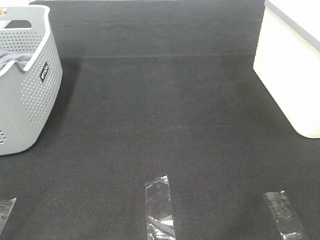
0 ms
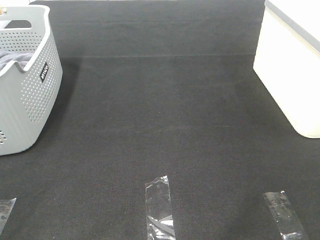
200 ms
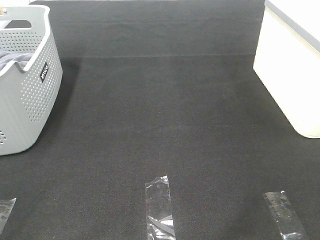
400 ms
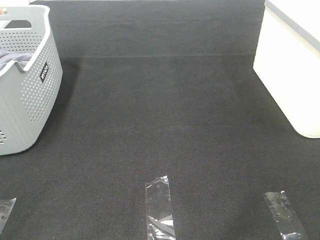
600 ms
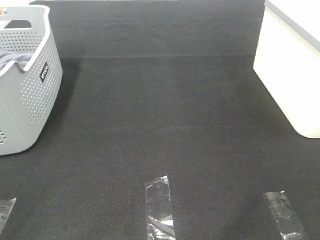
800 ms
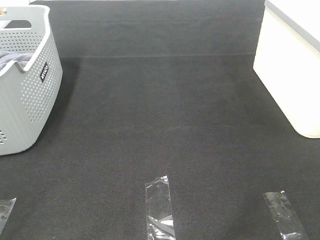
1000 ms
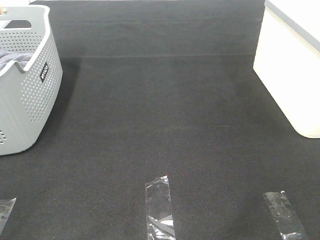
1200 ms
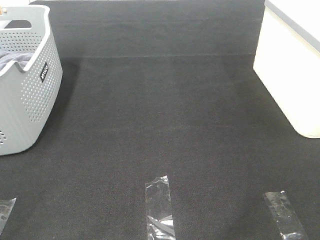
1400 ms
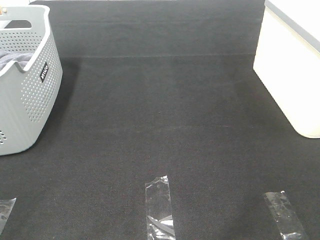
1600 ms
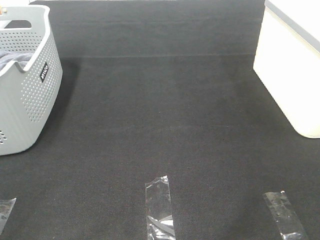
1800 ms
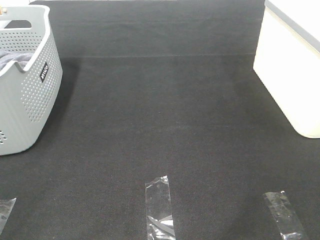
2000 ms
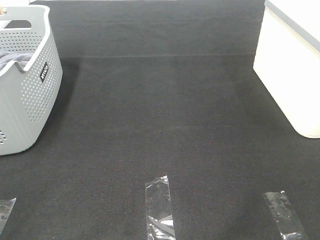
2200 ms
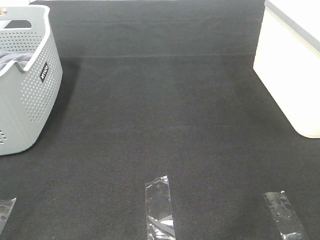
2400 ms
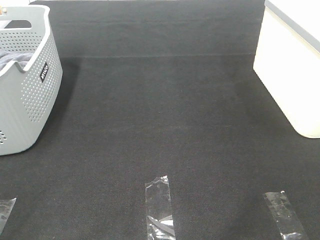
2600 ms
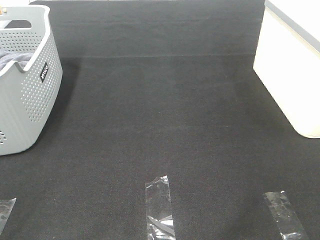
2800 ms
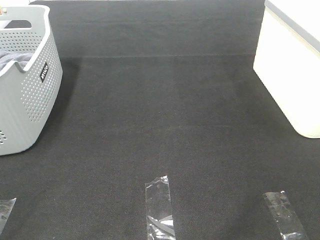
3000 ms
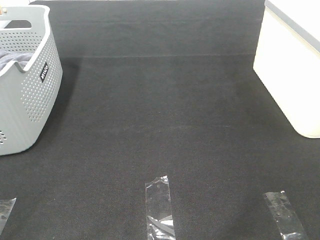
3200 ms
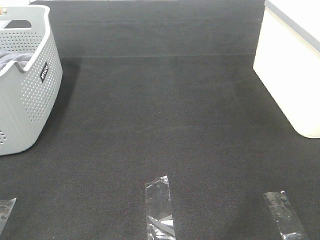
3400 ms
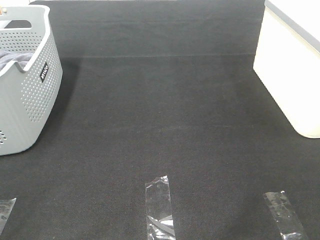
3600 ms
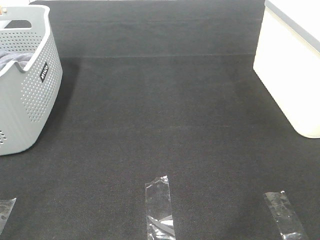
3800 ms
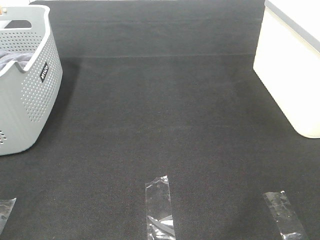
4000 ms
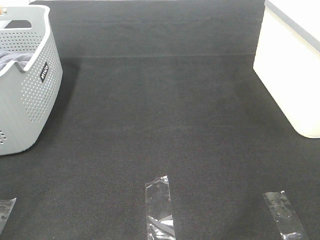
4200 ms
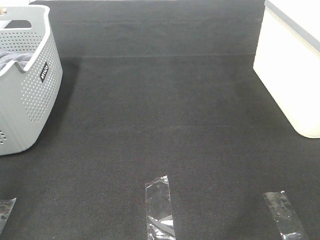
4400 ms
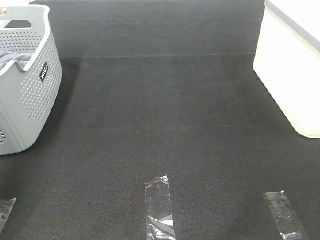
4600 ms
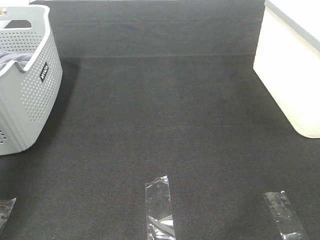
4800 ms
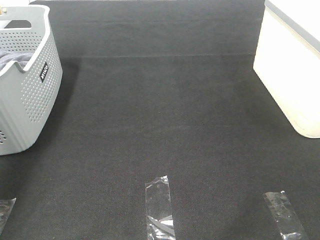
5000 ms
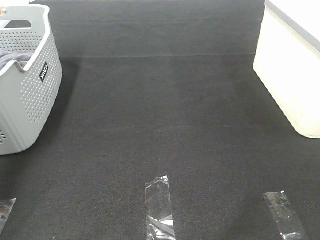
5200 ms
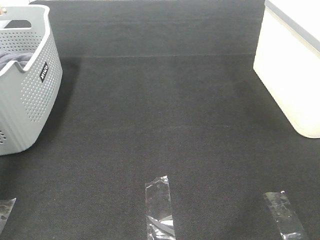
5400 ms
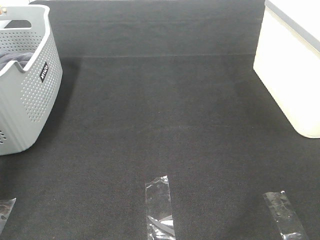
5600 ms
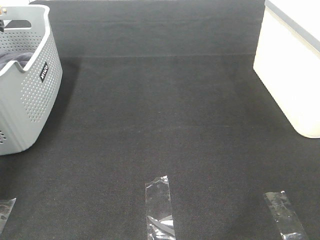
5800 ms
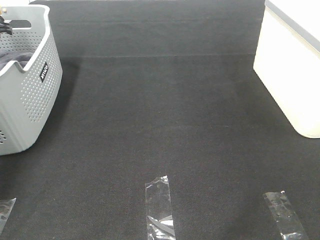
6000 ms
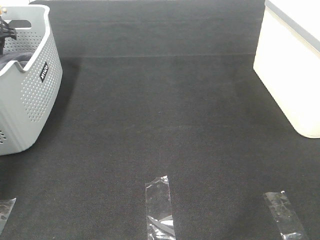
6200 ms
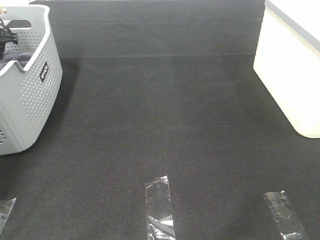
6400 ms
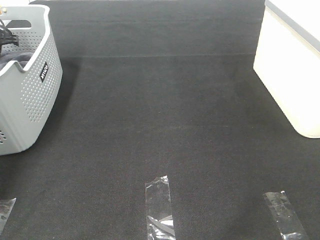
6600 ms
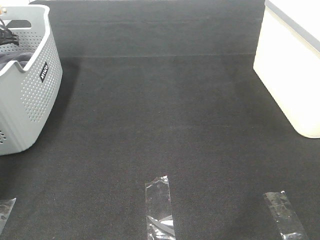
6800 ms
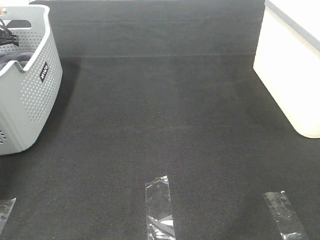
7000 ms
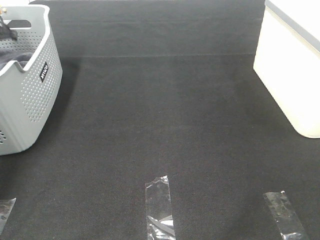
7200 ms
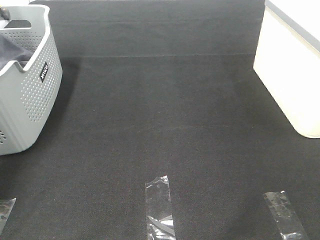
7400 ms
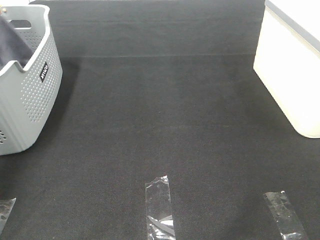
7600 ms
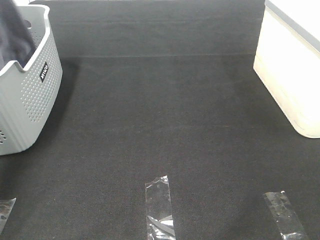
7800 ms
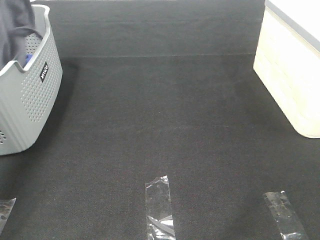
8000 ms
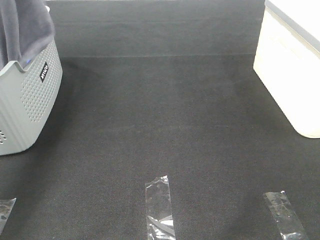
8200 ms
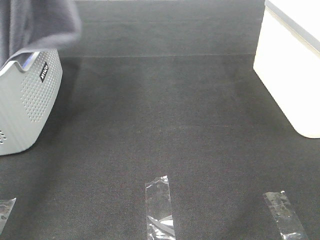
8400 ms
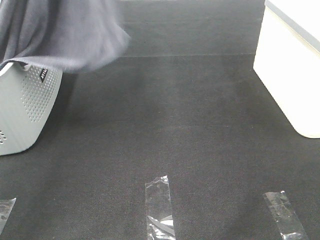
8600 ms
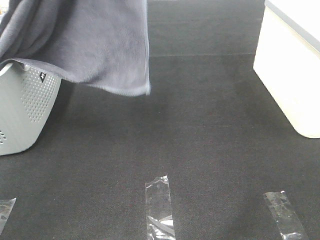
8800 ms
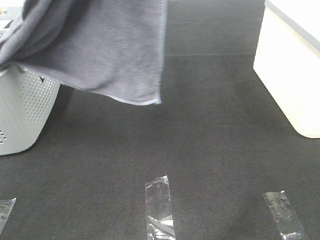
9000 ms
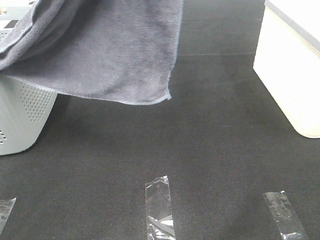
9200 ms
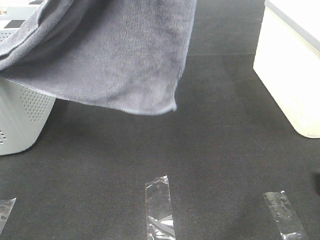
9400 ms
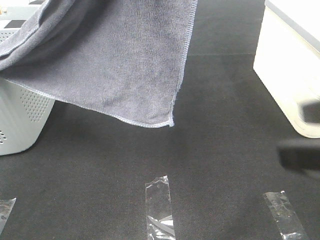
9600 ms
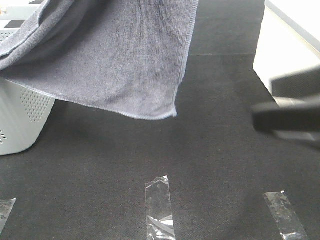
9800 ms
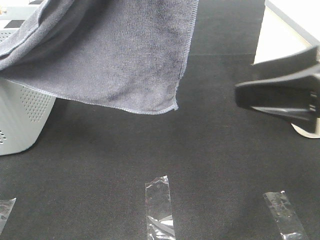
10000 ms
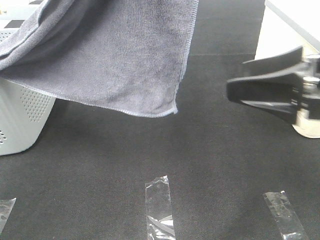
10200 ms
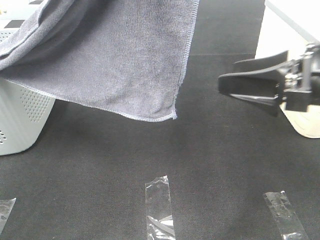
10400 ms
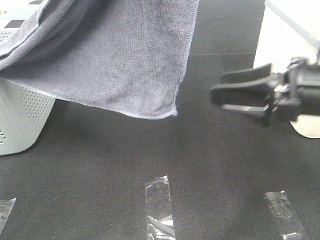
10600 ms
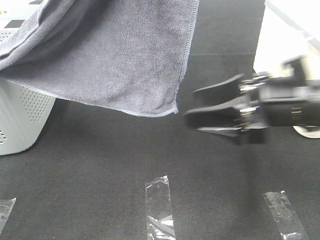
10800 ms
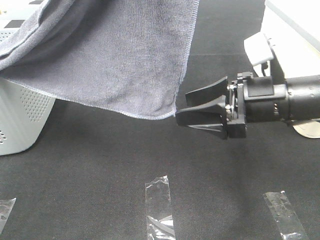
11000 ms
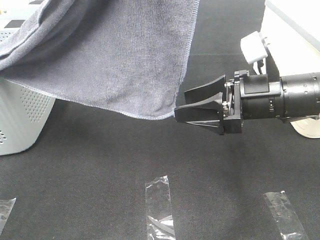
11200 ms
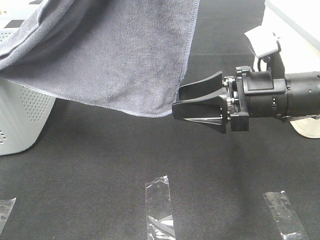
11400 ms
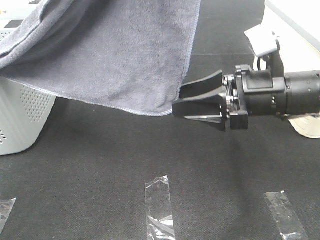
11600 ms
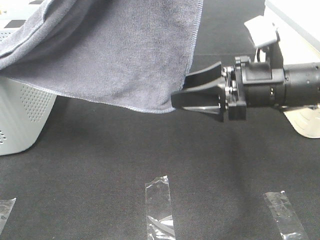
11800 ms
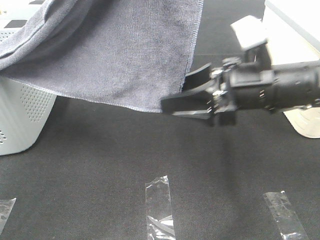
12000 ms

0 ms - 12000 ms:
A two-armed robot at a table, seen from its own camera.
Task of the whole recording: Remove the towel and place it.
Step, 8400 ms - 11400 ms: Right hand: grab a corner of the grey towel and straighten it.
0 ms - 3000 ms: Neither gripper changes place.
4400 ms - 6000 ms: The left gripper moves forward, approximately 40 cm.
6000 ms - 7600 ms: The left gripper shifts some 10 cm upward, and closes up.
7600 ms - 9000 ms: The left gripper shifts roughly 40 cm to the right, backward and upward.
9000 ms - 10400 ms: The right gripper heads forward, covering approximately 20 cm.
10400 ms - 12000 ms: The right gripper goes roughly 10 cm to the left.

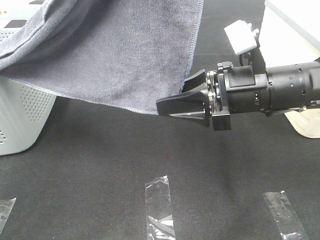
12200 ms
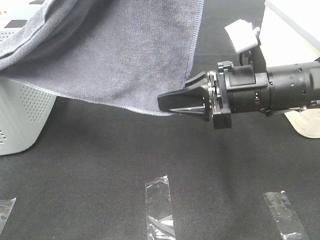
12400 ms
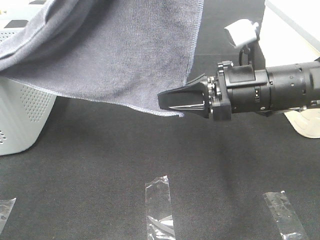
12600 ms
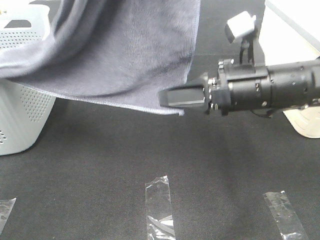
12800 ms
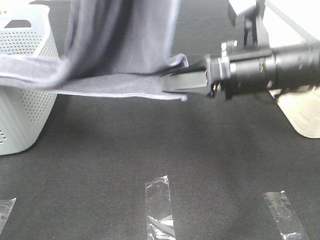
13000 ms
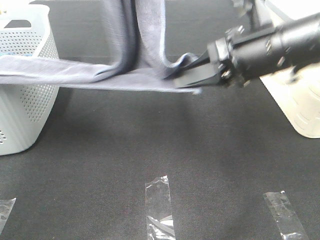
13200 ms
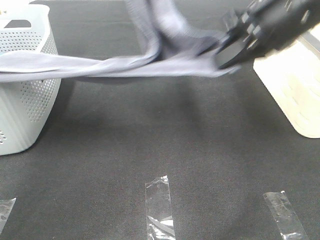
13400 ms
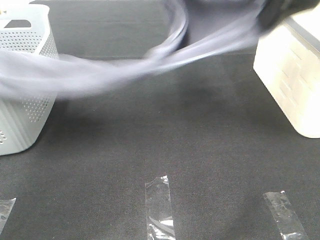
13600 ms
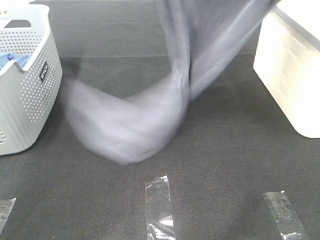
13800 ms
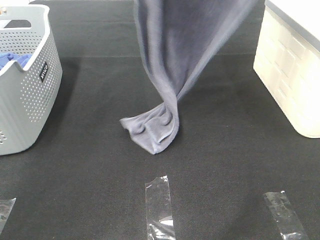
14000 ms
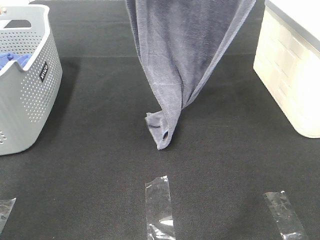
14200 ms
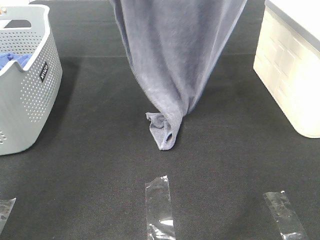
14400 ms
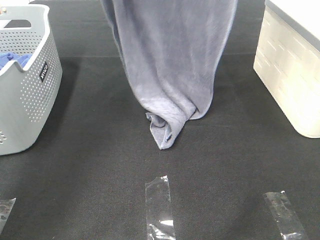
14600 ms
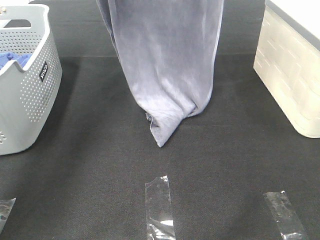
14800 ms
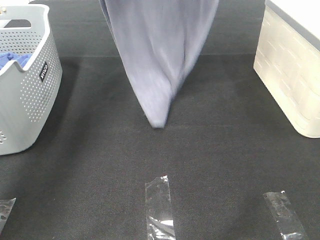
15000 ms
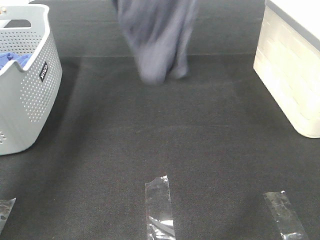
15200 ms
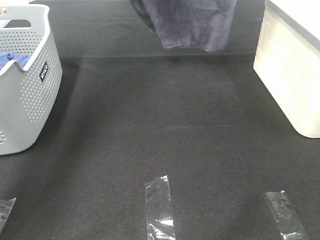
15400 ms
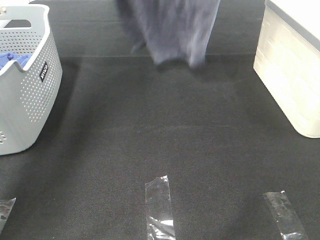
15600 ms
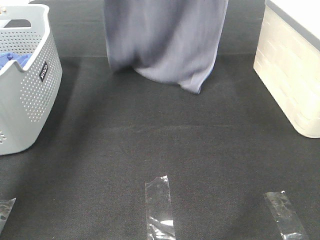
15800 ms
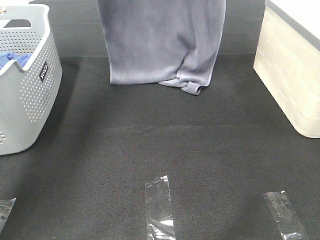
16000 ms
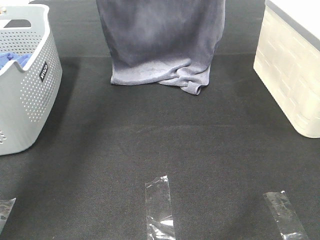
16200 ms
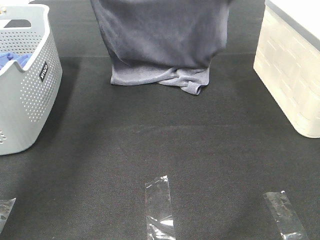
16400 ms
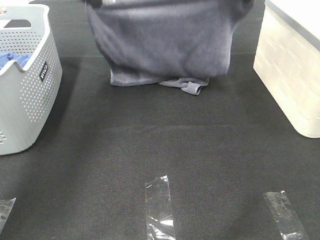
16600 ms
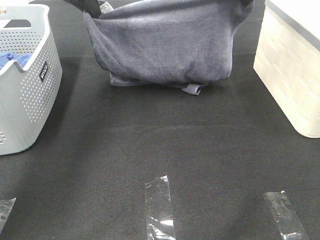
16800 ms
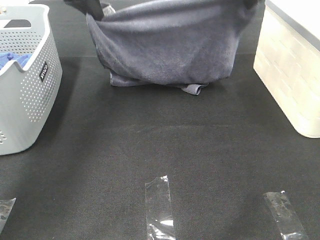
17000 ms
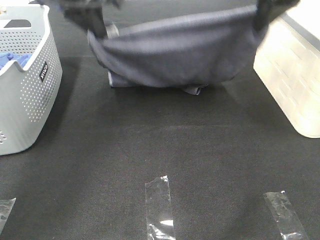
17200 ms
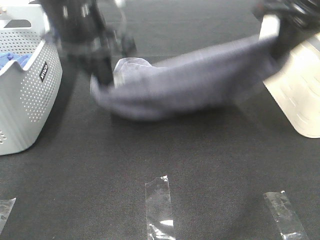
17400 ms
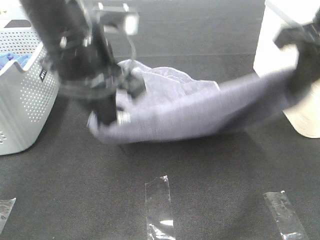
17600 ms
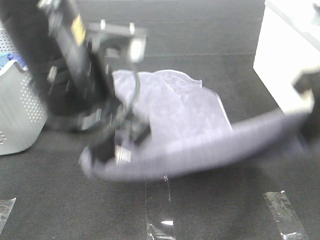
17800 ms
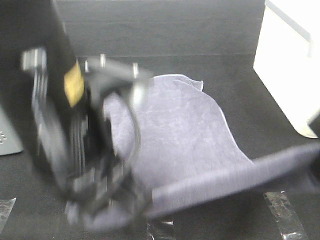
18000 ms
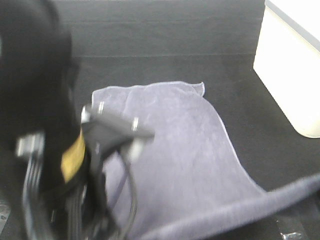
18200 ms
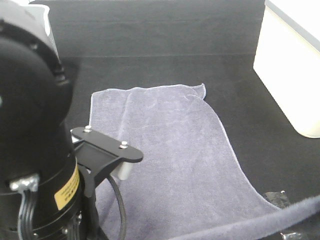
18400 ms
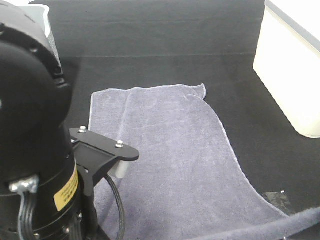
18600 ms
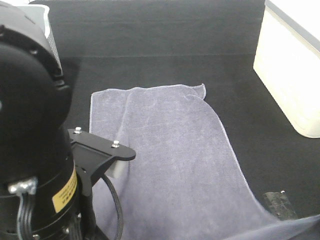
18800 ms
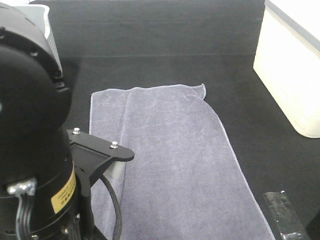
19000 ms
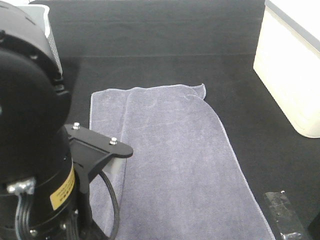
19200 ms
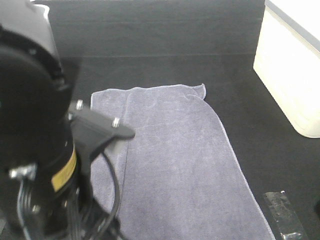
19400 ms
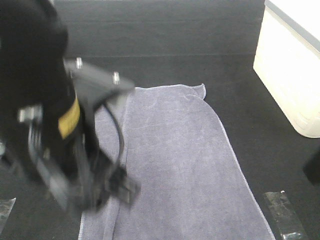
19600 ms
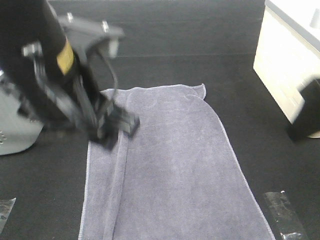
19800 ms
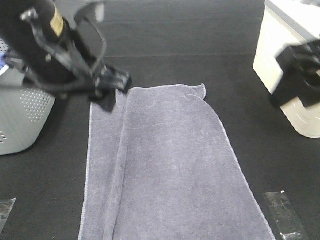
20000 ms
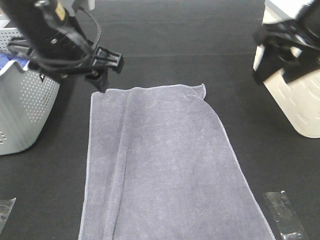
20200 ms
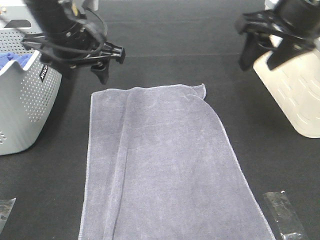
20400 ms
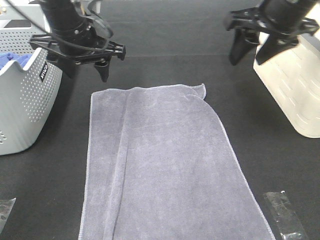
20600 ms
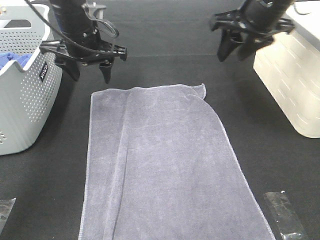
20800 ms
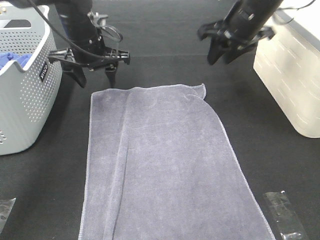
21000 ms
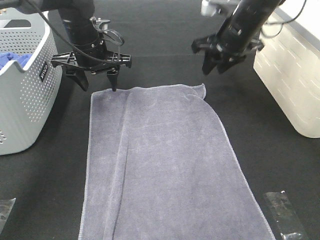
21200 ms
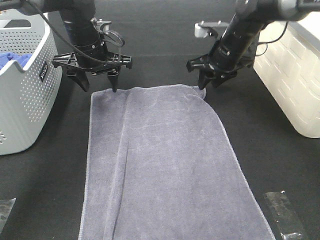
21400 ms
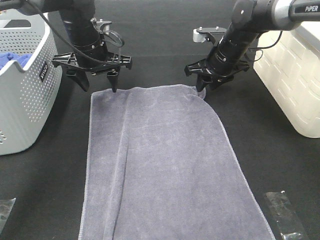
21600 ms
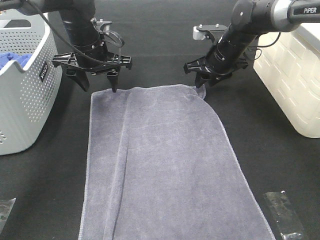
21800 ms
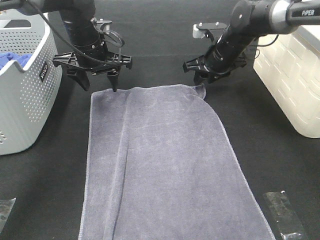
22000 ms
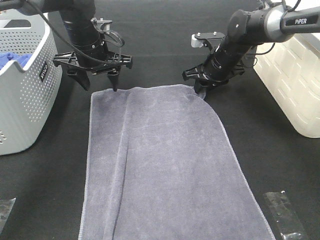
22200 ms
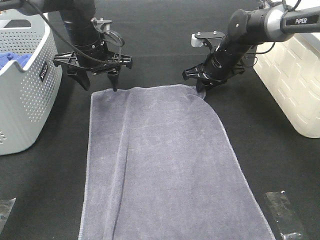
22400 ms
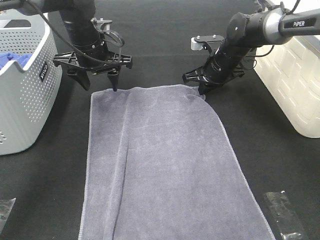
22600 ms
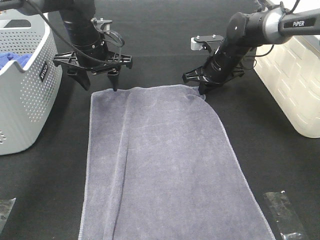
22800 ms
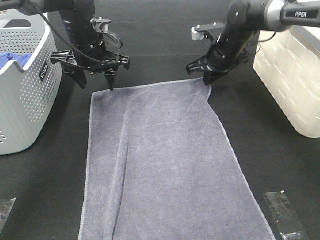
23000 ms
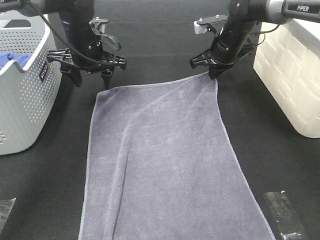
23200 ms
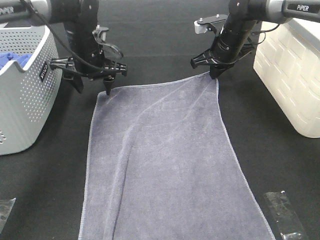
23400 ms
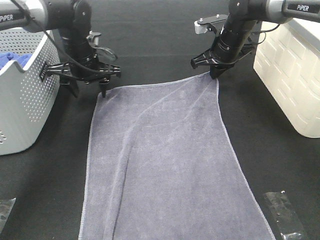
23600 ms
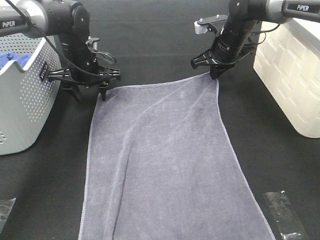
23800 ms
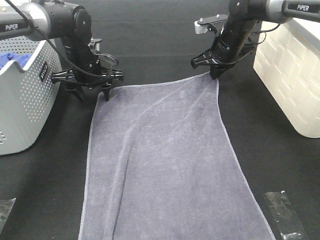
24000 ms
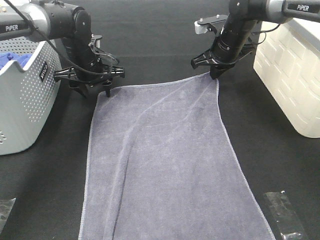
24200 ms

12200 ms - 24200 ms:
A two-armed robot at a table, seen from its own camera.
Task of the whole recording: Remove the towel and place it.
Step, 12200 ms - 15600 ms: Left hand: spread the grey towel flat on the table.
Step, 12200 ms - 15600 ms: Right hand: spread the grey towel flat on the table.
Step, 15800 ms - 23400 ms: Left hand:adjust the gray towel.
Step, 15800 ms - 23400 ms: Right hand:adjust the gray towel.
12200 ms - 13800 ms: The right gripper moves upward, some 25 cm, and closes, while the left gripper moves forward, approximately 15 cm.
13800 ms - 15200 ms: The left gripper goes roughly 15 cm to the left and forward; the right gripper moves forward and upward, roughly 15 cm.
15200 ms - 16600 ms: The two grippers go about 15 cm downward.
16600 ms - 18200 ms: The grippers both shift backward by roughly 30 cm.
18200 ms - 19800 ms: The left gripper travels forward by roughly 10 cm, and opens its fingers. The right gripper heads forward, covering about 5 cm, and opens.
19800 ms - 21200 ms: The left gripper is displaced forward by about 25 cm. The right gripper shifts some 30 cm forward and downward.
21200 ms - 22600 ms: The right gripper travels downward by roughly 10 cm, and closes up.
22600 ms - 24200 ms: The left gripper travels downward by about 5 cm.
